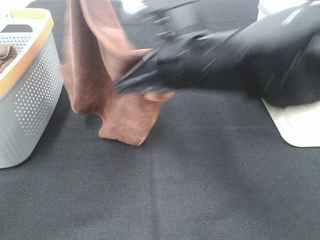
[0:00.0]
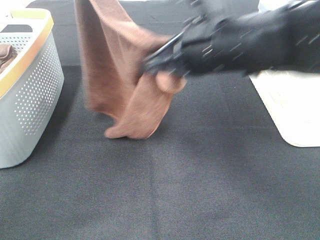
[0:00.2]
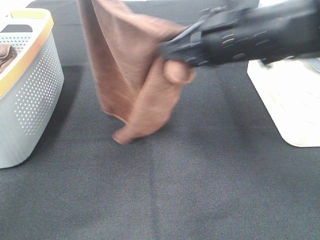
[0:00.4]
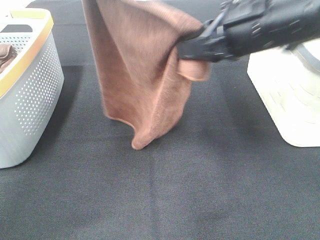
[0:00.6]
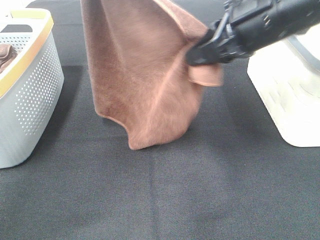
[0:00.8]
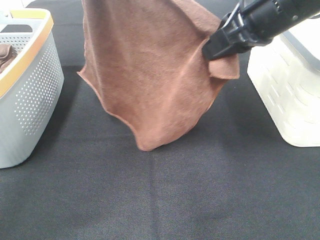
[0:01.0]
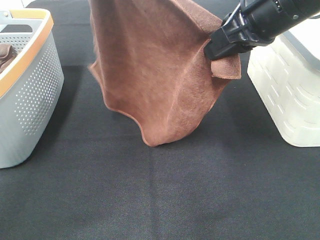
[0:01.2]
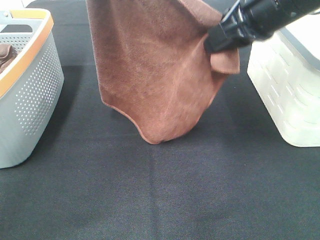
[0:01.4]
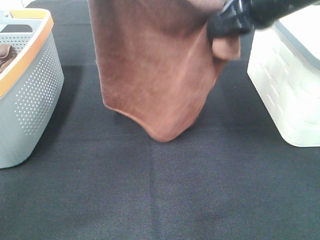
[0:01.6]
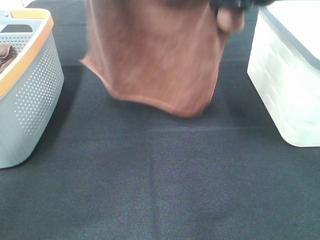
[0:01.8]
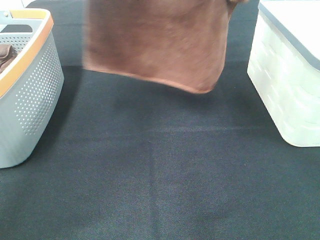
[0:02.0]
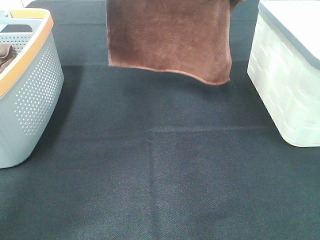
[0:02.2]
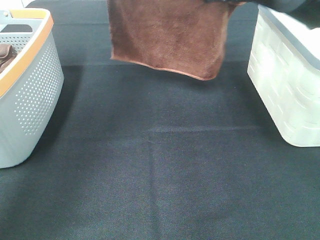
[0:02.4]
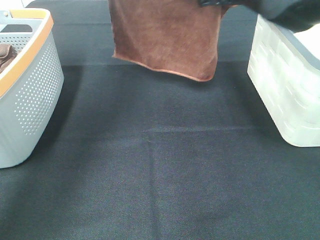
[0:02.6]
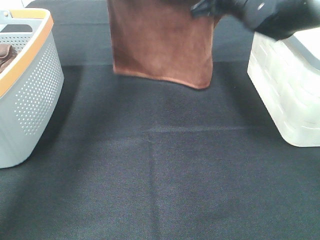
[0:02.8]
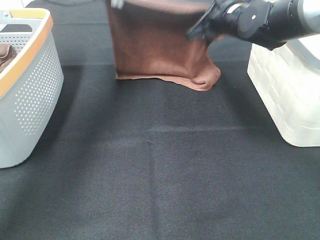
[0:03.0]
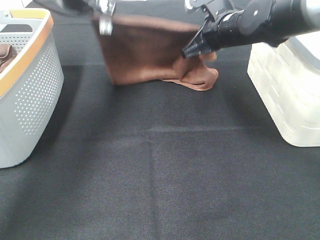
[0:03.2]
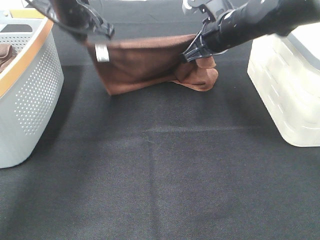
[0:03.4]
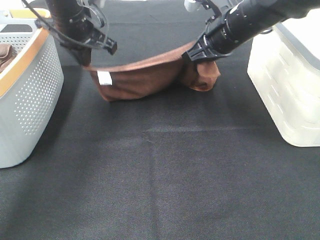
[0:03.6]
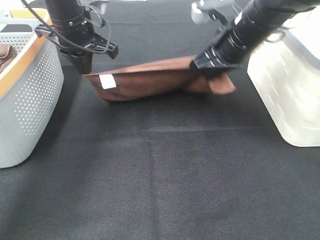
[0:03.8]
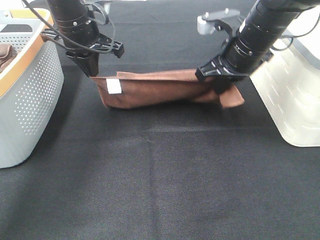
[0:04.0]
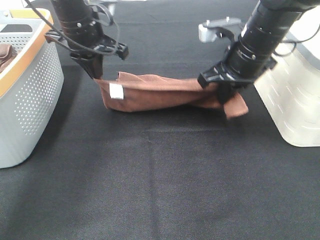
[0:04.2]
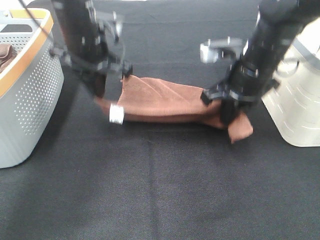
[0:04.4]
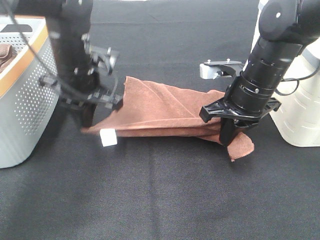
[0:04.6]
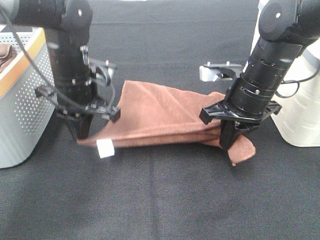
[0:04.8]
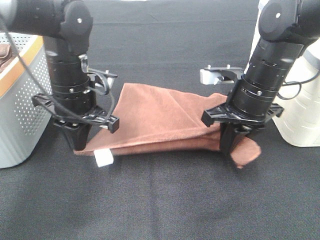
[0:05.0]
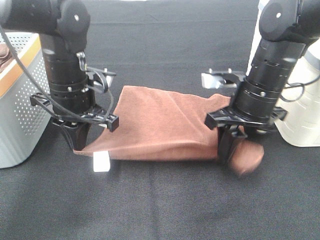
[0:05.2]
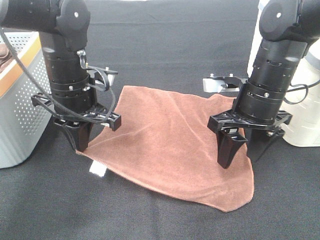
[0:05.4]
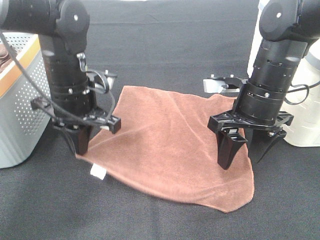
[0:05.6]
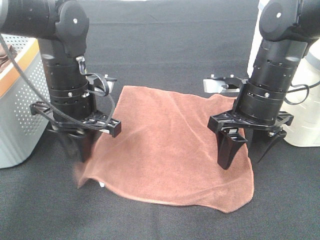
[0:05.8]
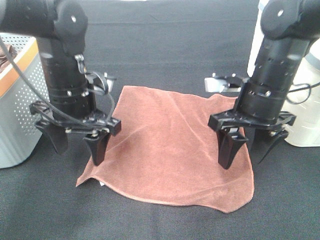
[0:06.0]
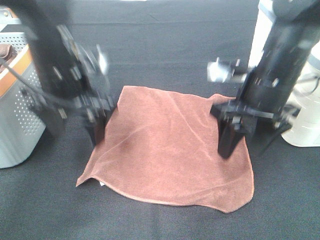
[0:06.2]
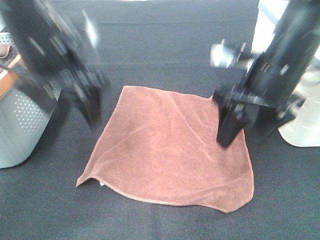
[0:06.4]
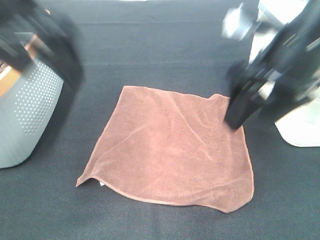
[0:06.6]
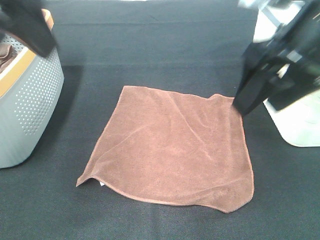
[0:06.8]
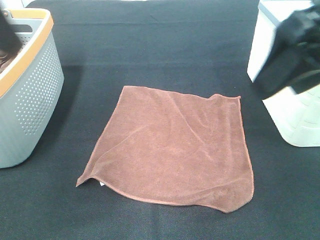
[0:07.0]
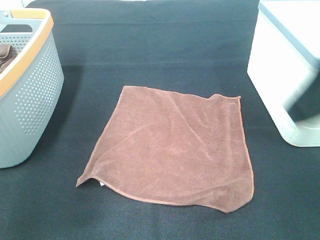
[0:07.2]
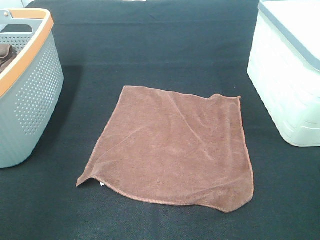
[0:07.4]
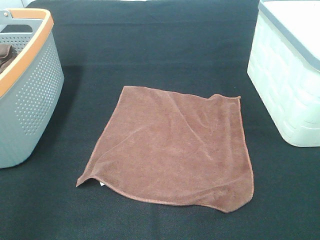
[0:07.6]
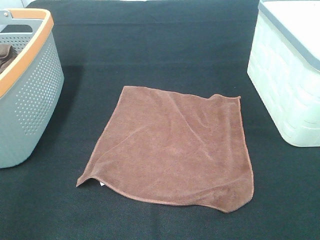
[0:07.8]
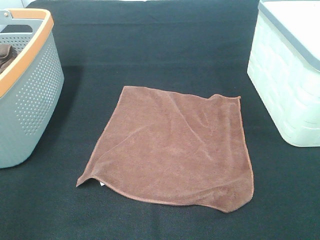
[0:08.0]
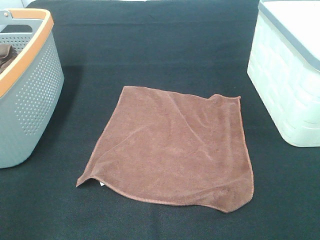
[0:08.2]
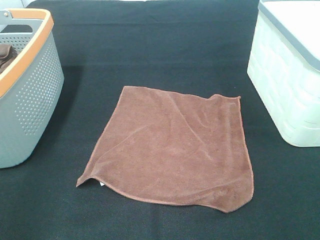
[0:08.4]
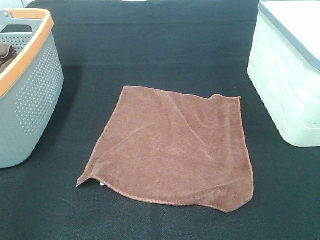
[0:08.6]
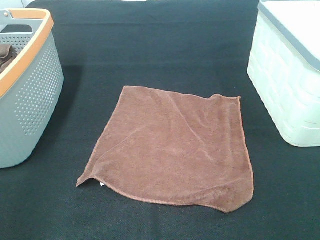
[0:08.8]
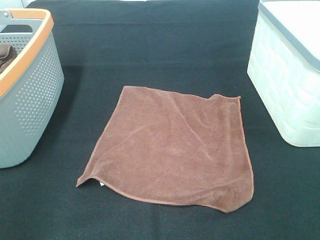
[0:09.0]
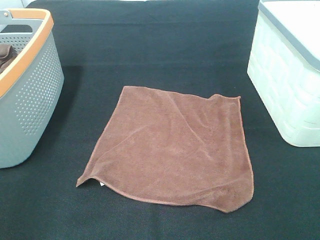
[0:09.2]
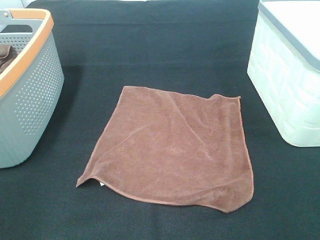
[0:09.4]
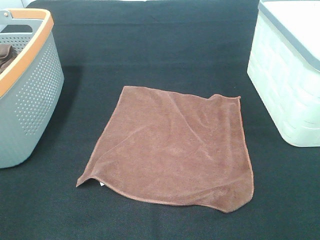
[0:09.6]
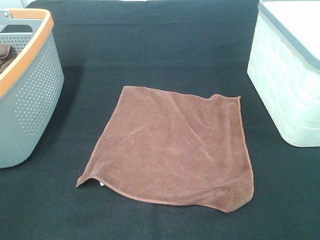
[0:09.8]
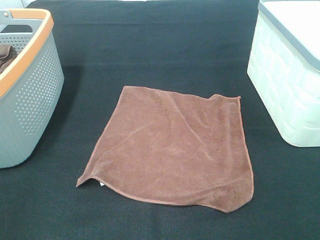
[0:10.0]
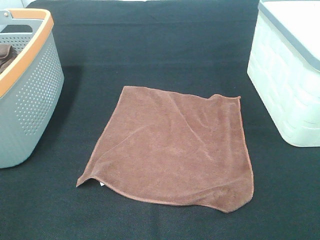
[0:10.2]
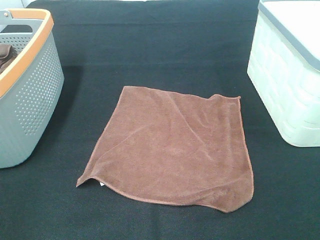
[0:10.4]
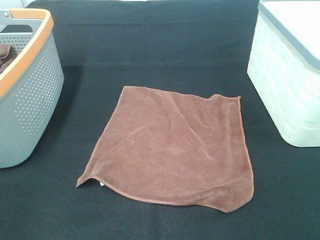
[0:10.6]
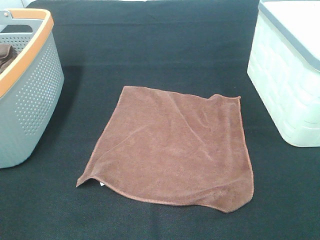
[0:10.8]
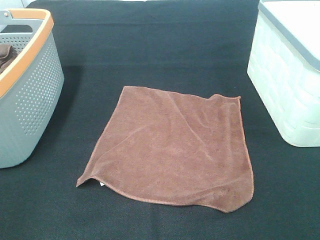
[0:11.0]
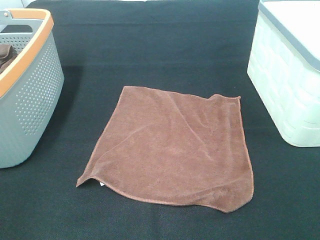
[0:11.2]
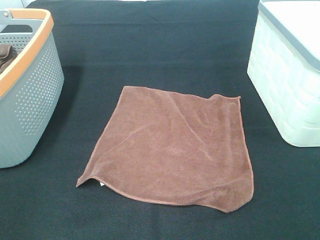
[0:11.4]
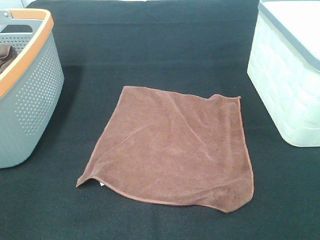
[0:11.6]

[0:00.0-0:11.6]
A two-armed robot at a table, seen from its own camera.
Task of the whole recording: Remove the towel and place it.
0:00.0 to 0:01.4: The right gripper travels to the right, forward and upward by some 15 cm.
0:01.4 to 0:02.8: Both grippers travel together forward and downward, some 20 cm.
0:02.8 to 0:04.4: The two grippers go some 15 cm backward and downward.
0:04.4 to 0:05.8: The right gripper opens up. The left gripper goes about 5 cm backward, and opens up.
0:05.8 to 0:07.2: The left gripper goes some 30 cm upward, backward and to the left; the right gripper heads upward and backward, covering roughly 25 cm.
0:07.2 to 0:08.8: The left gripper goes some 15 cm backward, downward and to the left, while the right gripper is displaced backward, to the right and downward by about 20 cm.

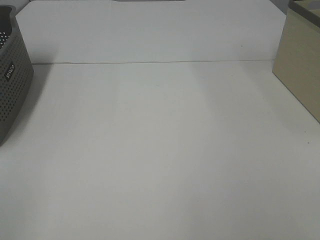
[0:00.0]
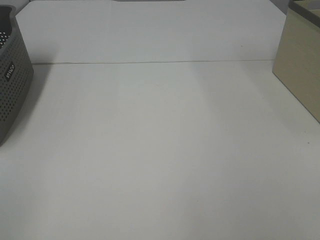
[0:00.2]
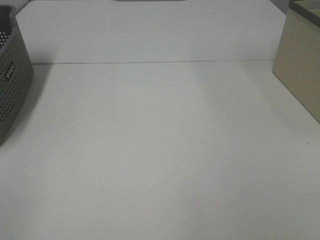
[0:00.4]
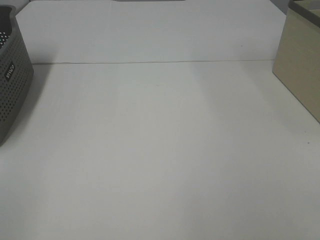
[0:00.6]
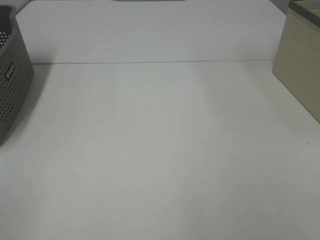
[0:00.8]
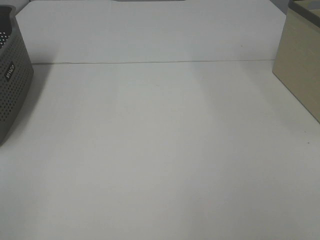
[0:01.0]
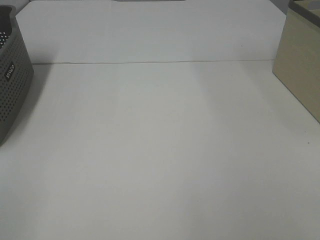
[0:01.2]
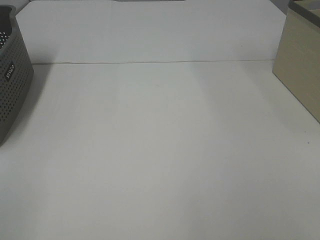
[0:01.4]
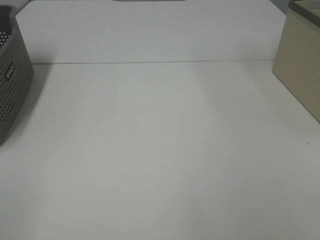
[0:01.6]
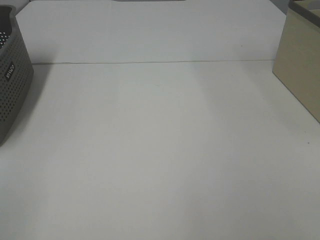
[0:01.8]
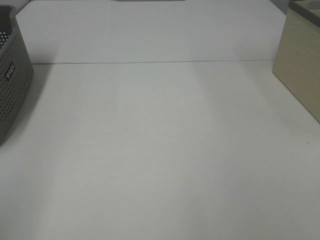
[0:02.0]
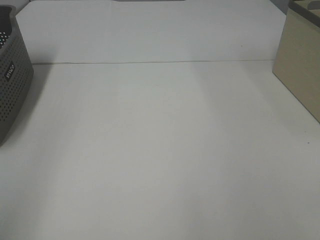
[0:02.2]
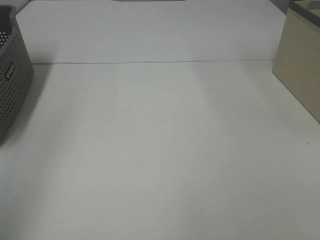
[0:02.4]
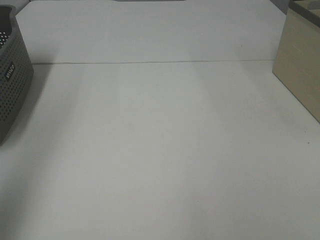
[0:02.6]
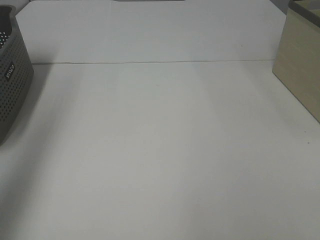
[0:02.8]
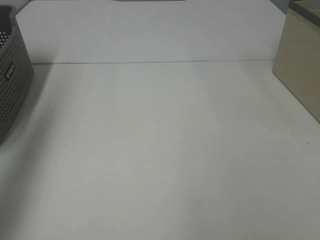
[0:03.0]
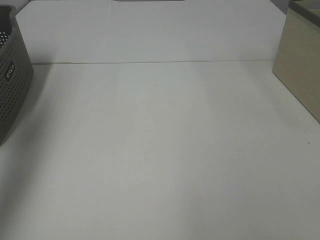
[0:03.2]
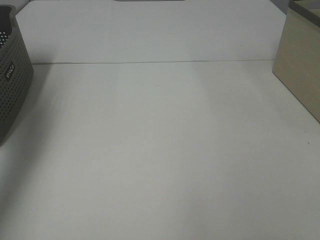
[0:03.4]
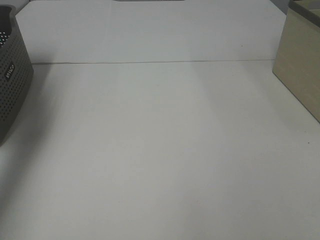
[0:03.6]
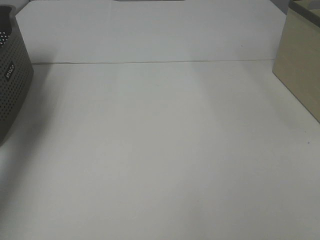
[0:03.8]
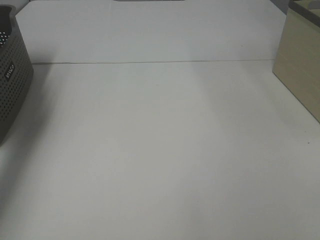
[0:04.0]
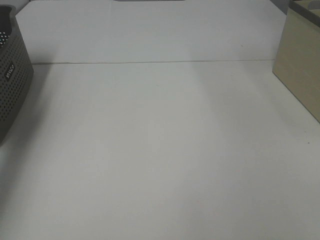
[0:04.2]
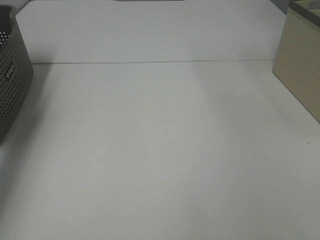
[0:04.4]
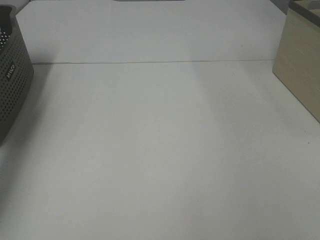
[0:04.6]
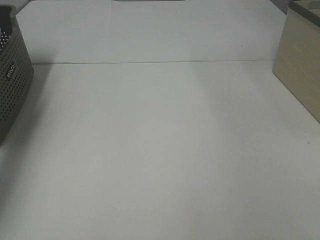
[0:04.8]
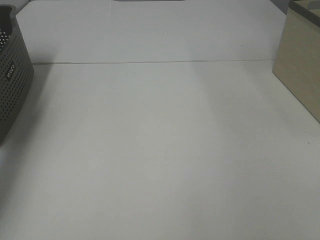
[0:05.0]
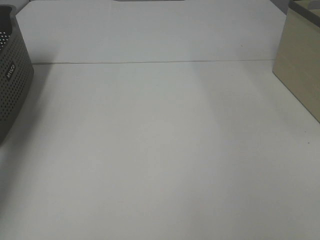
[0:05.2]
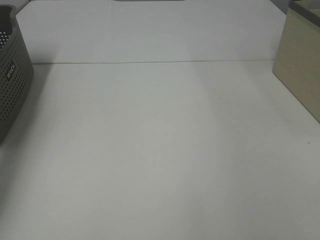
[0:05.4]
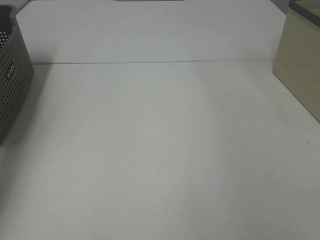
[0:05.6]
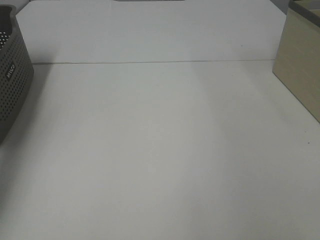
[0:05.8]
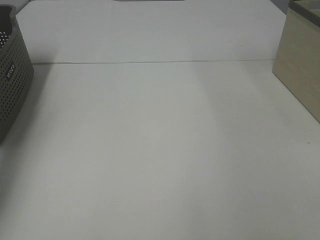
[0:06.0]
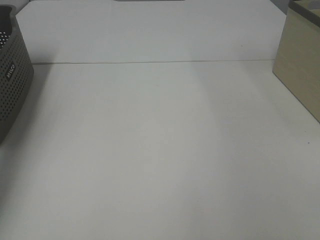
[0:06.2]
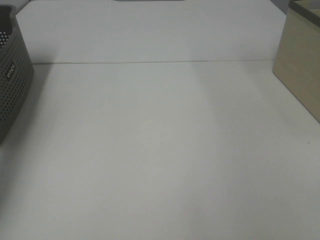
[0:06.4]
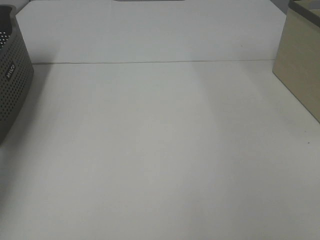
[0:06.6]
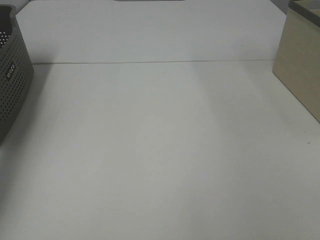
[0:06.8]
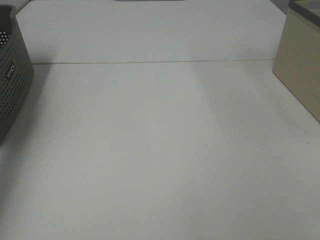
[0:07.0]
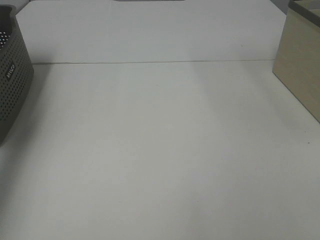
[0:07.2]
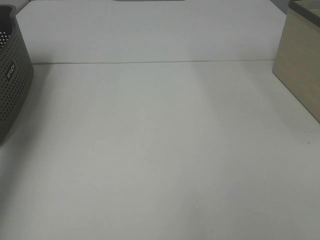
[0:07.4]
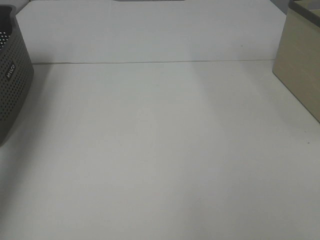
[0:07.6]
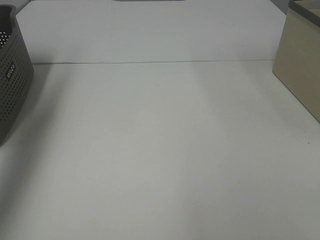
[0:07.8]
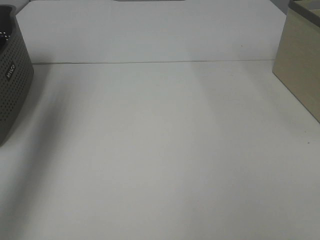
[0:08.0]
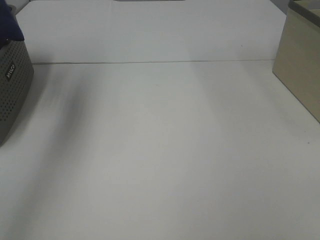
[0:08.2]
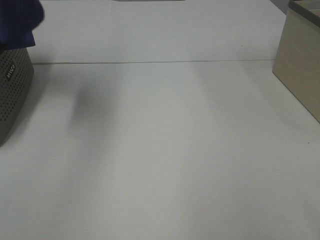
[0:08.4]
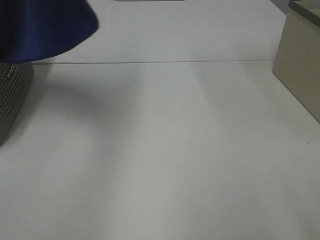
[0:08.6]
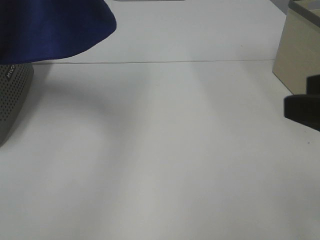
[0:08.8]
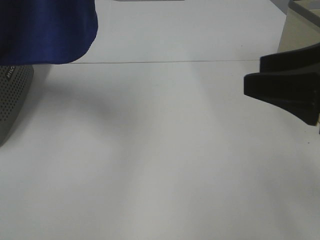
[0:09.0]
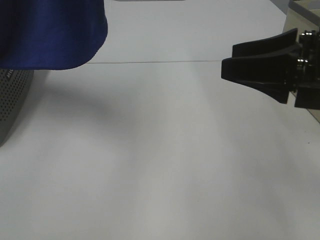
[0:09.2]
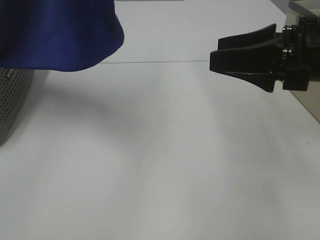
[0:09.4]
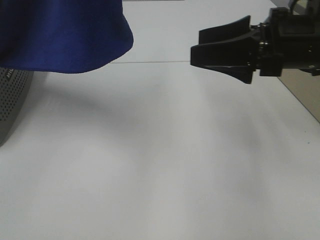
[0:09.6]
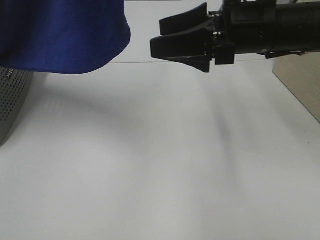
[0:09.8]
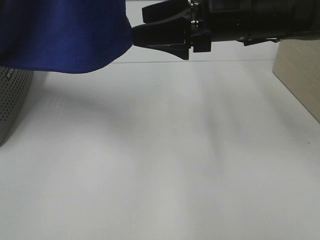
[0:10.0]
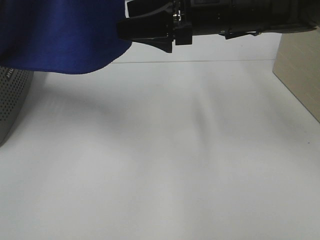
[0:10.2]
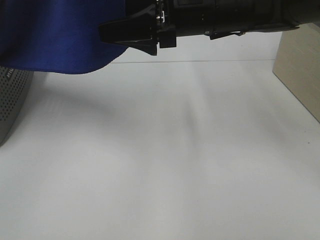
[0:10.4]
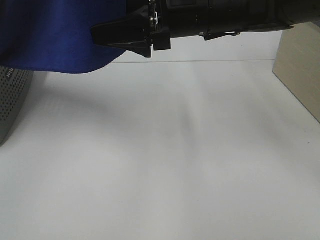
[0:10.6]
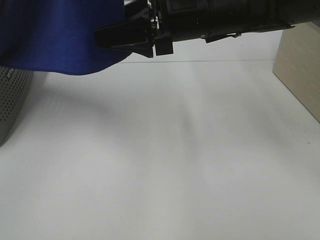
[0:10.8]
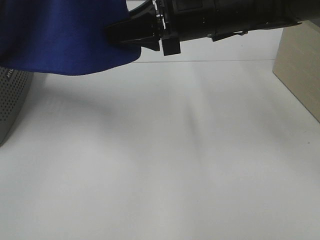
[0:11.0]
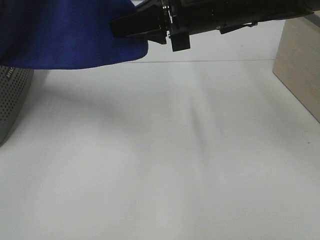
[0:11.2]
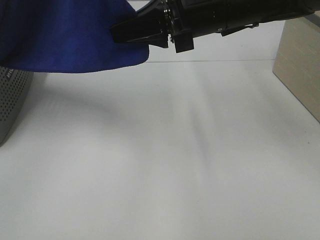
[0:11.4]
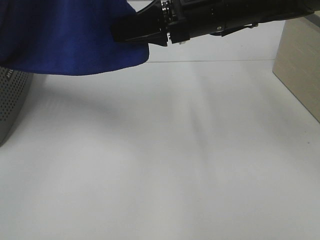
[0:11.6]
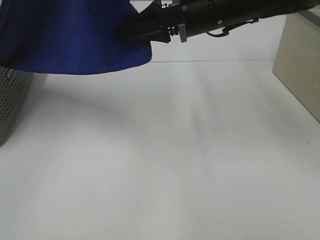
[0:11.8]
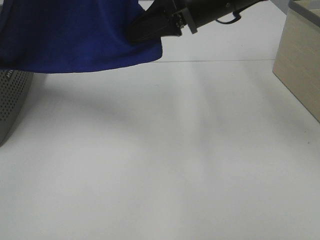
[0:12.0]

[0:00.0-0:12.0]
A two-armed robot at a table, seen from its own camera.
Task of the whole recording: Remove the towel and place it.
Step, 0:08.4 to 0:11.6: Right hand: grab a corner of the blue towel and straighten it.
0:00.0 to 0:01.6: The two grippers keep their place.
0:01.6 to 0:03.0: The left gripper travels forward and upward by some 30 cm.
0:03.0 to 0:04.4: The left gripper travels downward and forward by approximately 30 cm.
0:07.6 to 0:09.0: The left gripper heads to the right, backward and upward, covering approximately 30 cm; the right gripper travels forward by about 15 cm.
0:09.0 to 0:10.4: The right gripper is displaced forward and to the left by about 25 cm, and opens its fingers.
0:10.4 to 0:12.0: The right gripper closes up.
